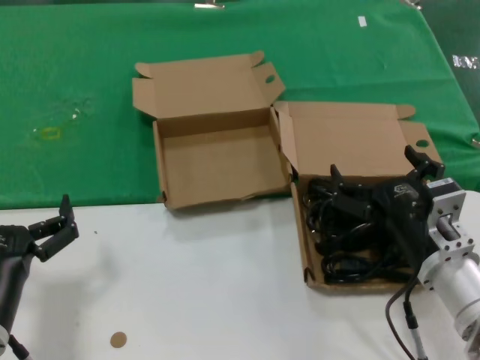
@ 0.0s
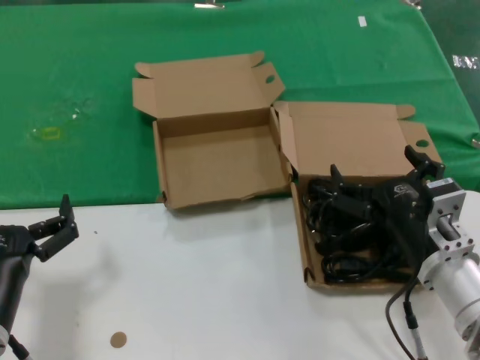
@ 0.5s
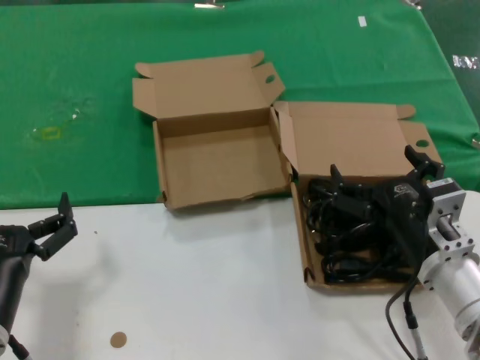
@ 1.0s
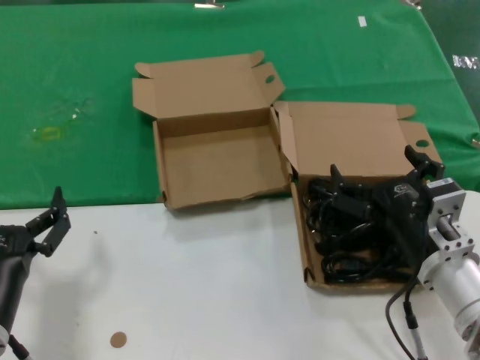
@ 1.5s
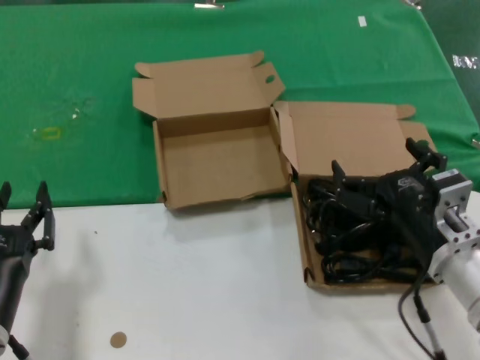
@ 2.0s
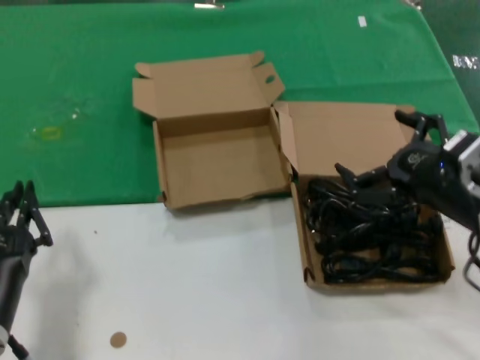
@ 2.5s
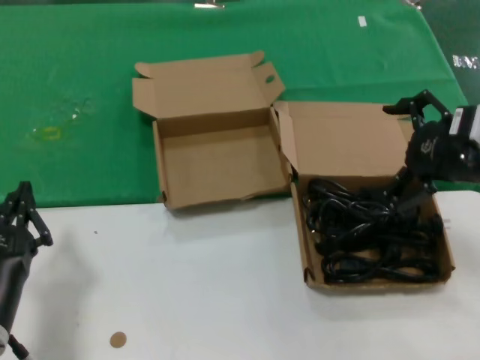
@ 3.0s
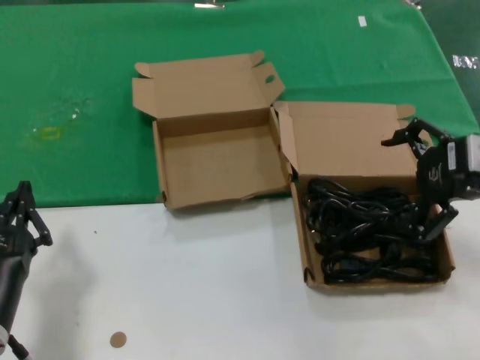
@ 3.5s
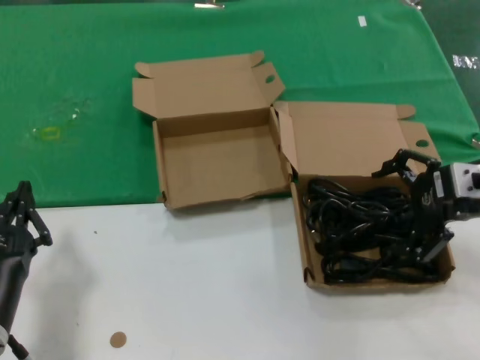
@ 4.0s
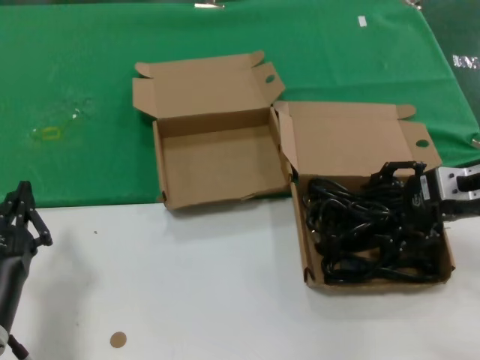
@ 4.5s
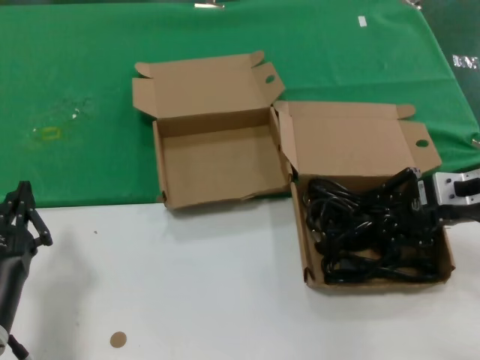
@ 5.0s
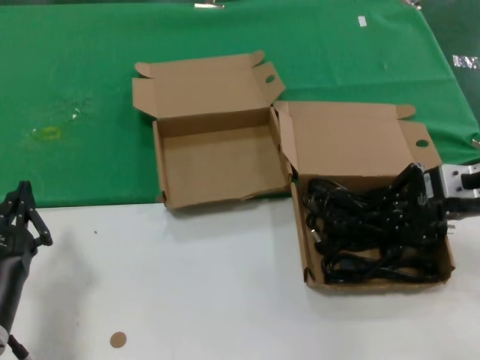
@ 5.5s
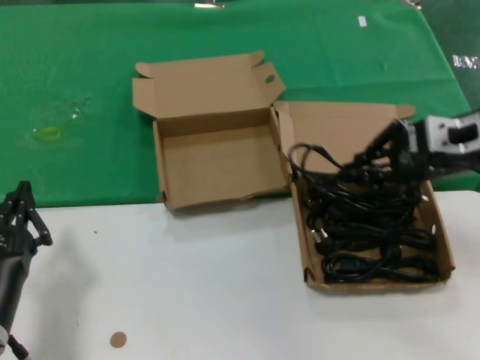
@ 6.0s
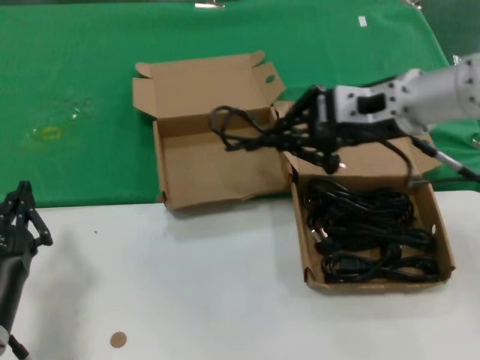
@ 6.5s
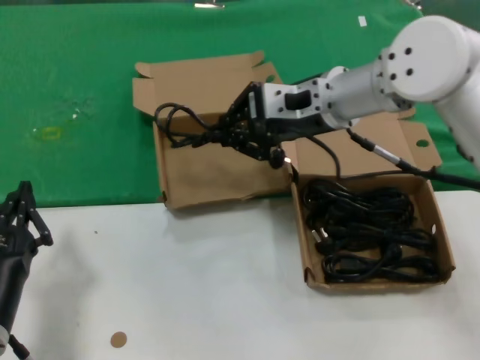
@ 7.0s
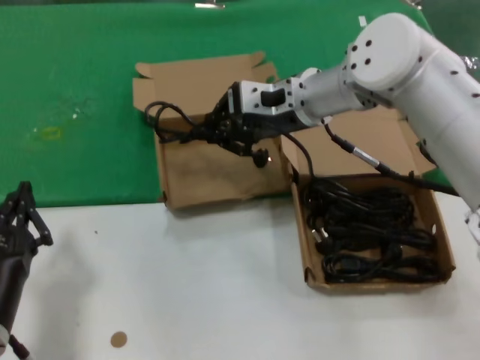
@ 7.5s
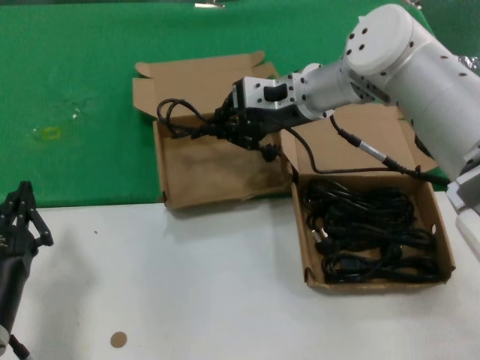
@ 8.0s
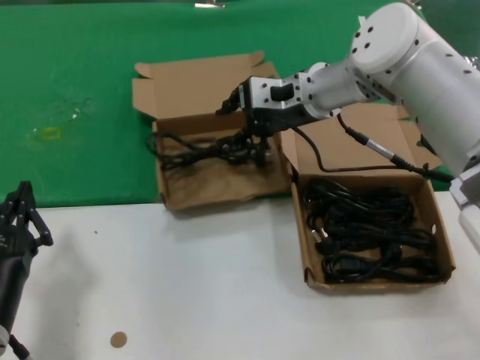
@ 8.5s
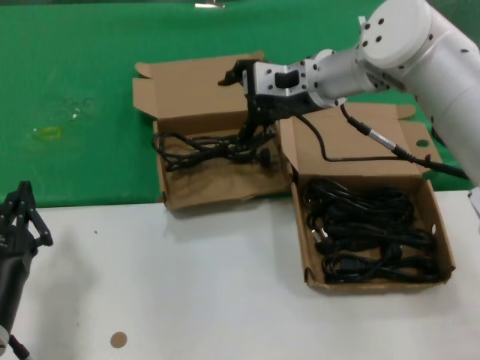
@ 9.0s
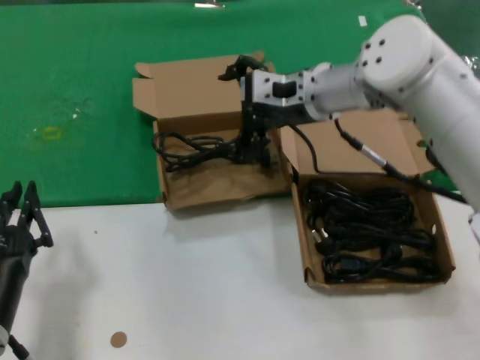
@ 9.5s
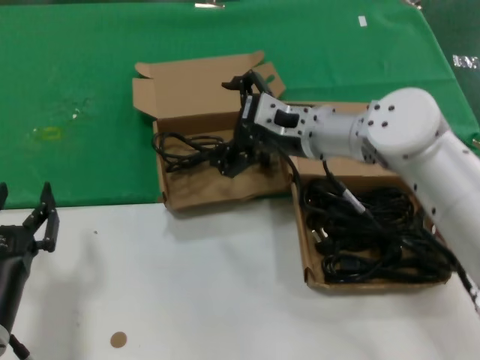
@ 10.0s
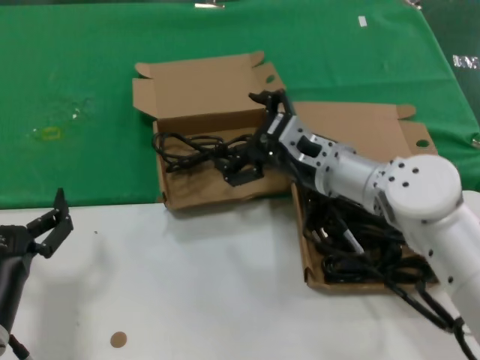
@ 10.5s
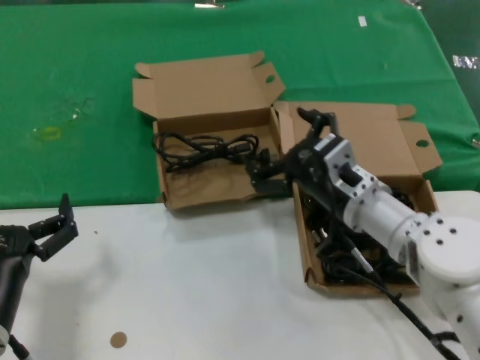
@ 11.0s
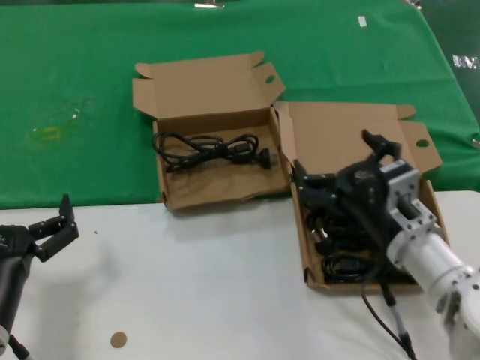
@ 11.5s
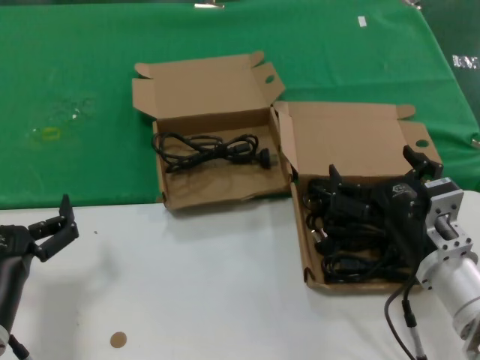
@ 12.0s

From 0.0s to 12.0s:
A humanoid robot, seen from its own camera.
Task of the whole recording: take the parts from the box containing them and put them into an empty box.
Step, from 0.0s to 4.5s: Grasp the data cable.
Step, from 5.5s to 8.5s: Place the data cable in the another box.
From 0.0s to 2.0s: The two hands keep their place.
From 2.0s to 4.0s: The right hand travels upward, to the right and forward by approximately 20 cm.
From 4.0s to 6.0s: The right hand ends up some 5 cm from where it was.
From 6.0s to 8.0s: The right hand shifts about 25 cm to the left and forward.
From 8.0s to 10.0s: The right hand heads downward, covering about 5 cm.
From 10.0s to 12.0s: The right hand heads backward, downward and to the right, covering about 25 cm.

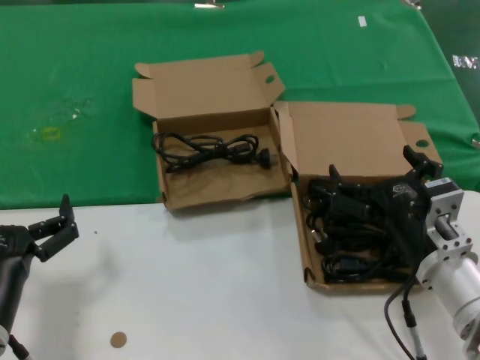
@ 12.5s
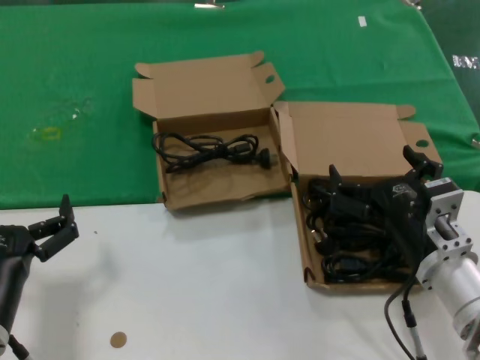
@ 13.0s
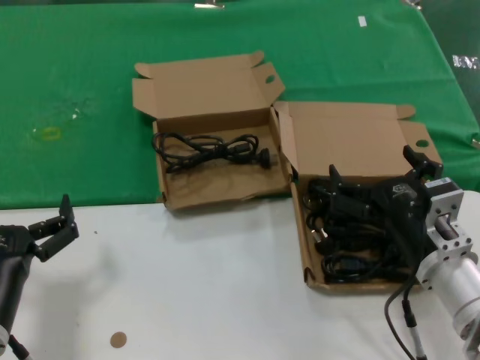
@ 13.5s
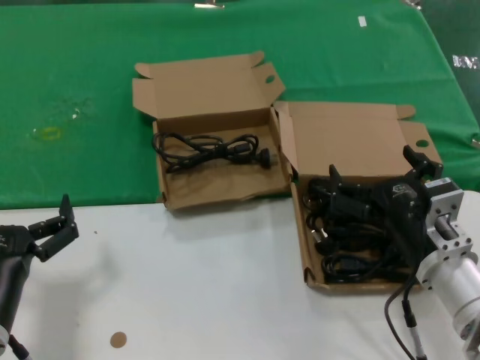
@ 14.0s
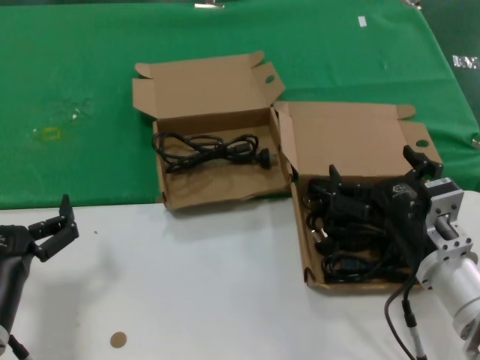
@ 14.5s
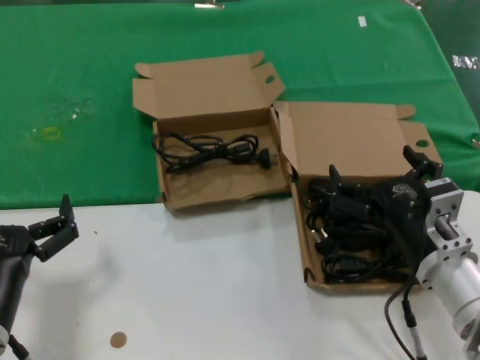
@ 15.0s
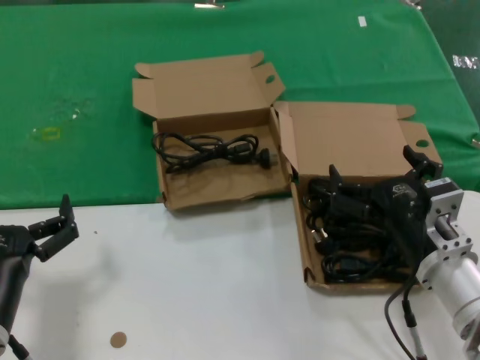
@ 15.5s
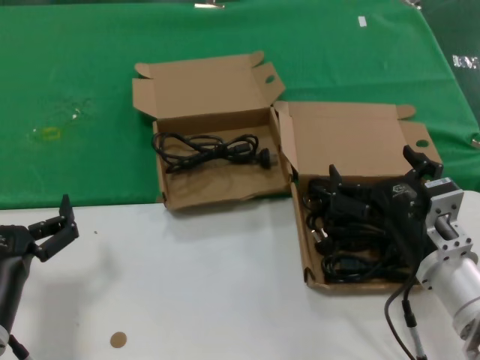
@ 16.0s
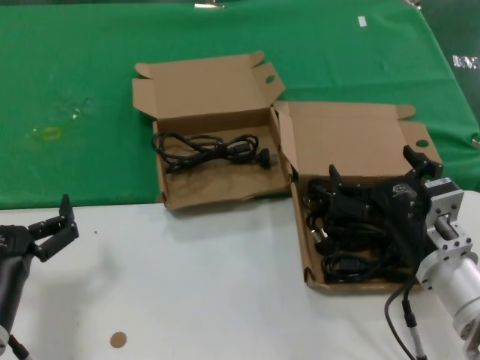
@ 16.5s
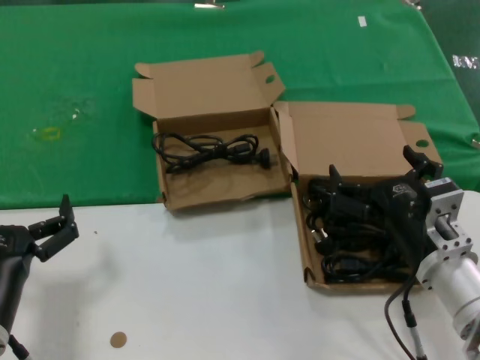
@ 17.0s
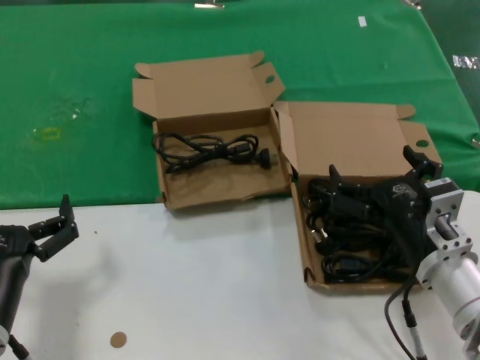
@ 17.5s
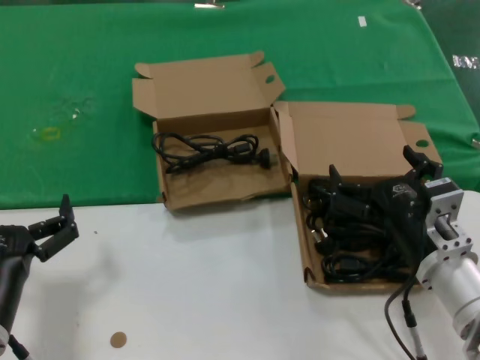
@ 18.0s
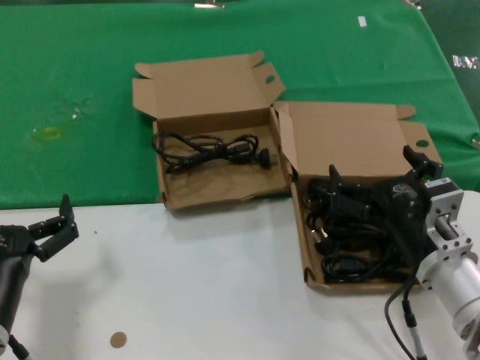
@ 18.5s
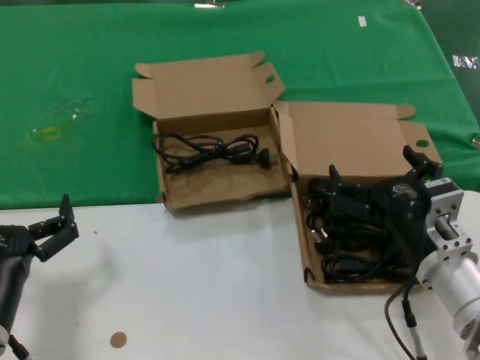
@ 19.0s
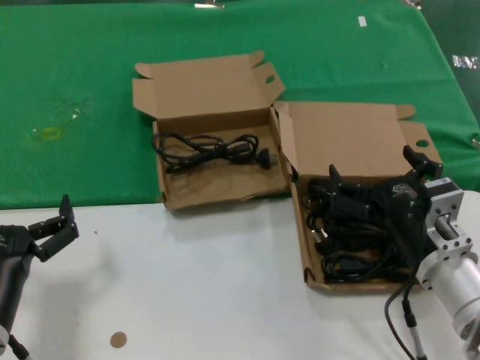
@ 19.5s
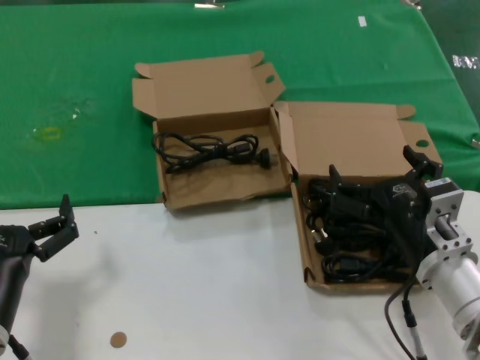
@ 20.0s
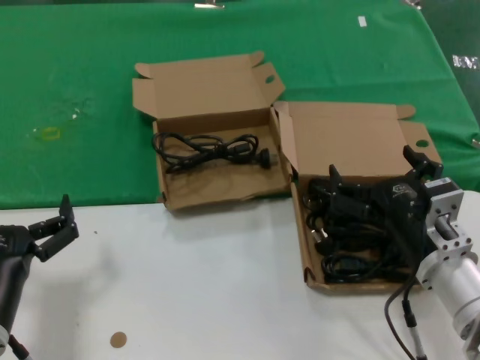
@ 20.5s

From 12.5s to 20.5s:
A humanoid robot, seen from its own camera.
Task of the whole recording: take the parts from the box containing them and put them into an empty box.
From 12.5s to 20.5s: Neither hand changes place.

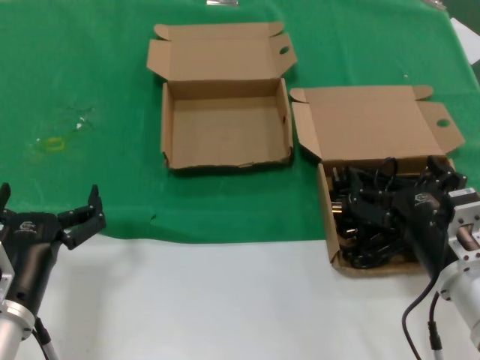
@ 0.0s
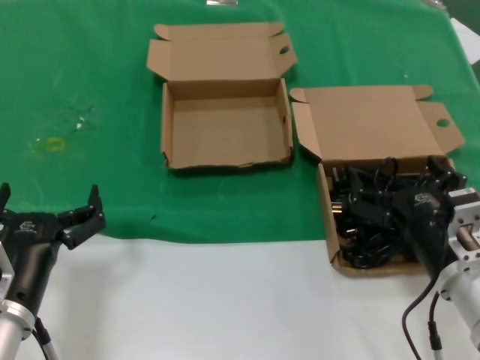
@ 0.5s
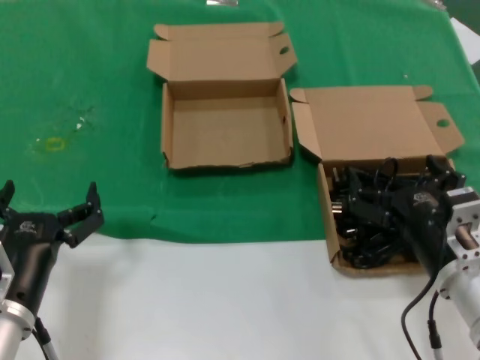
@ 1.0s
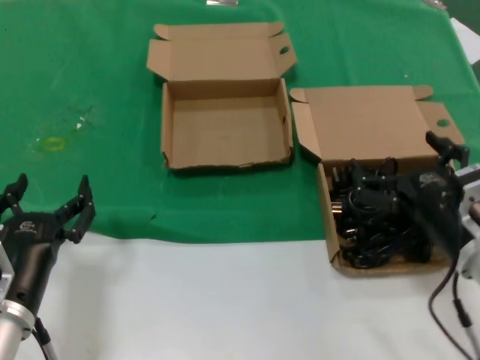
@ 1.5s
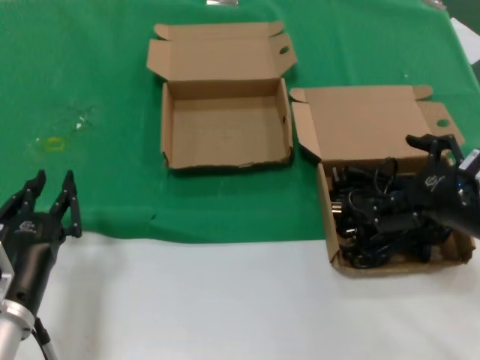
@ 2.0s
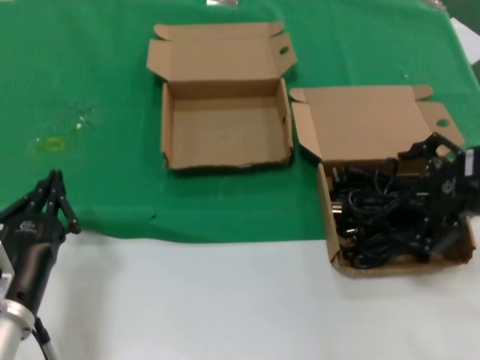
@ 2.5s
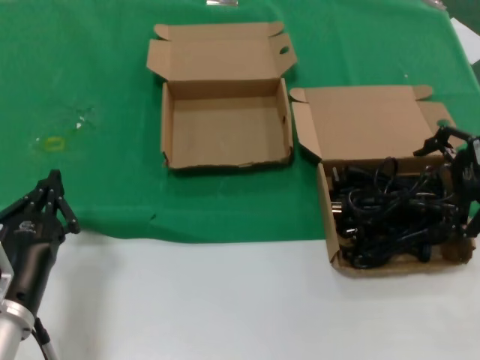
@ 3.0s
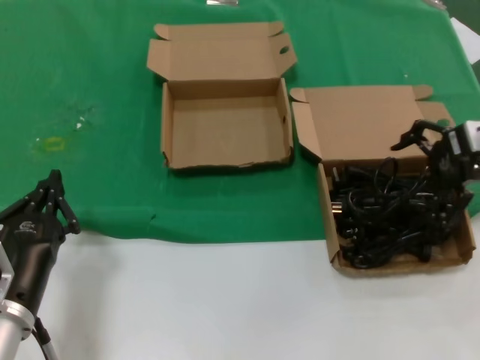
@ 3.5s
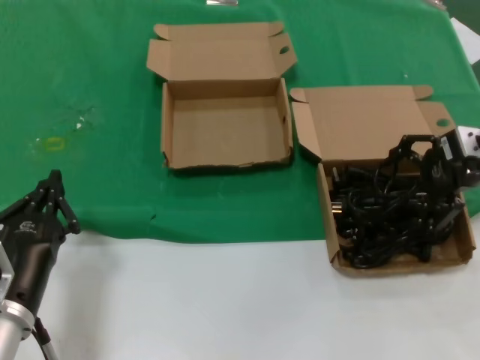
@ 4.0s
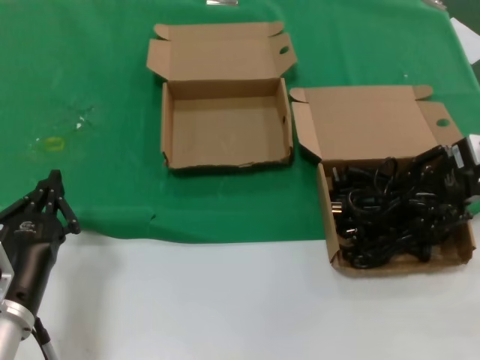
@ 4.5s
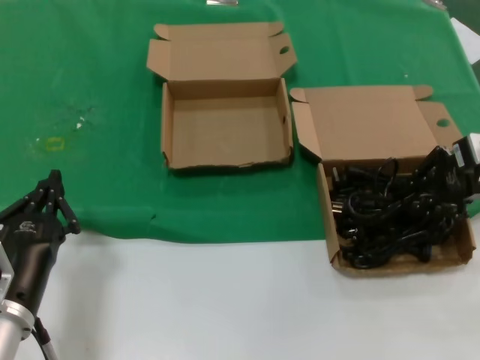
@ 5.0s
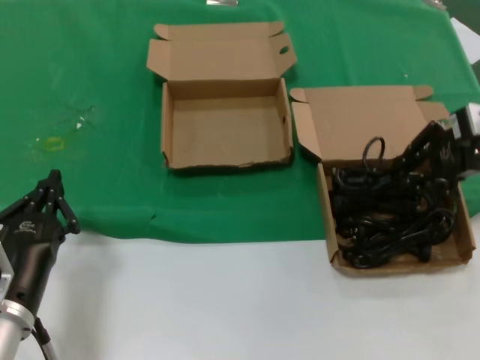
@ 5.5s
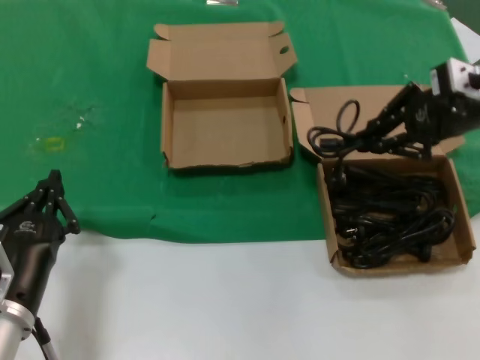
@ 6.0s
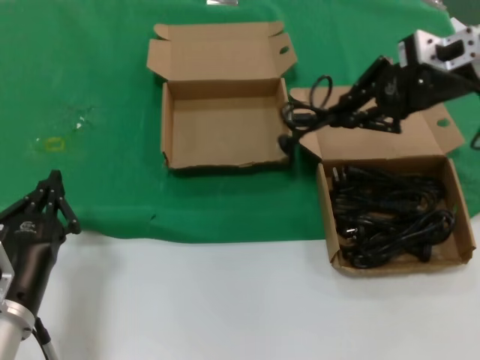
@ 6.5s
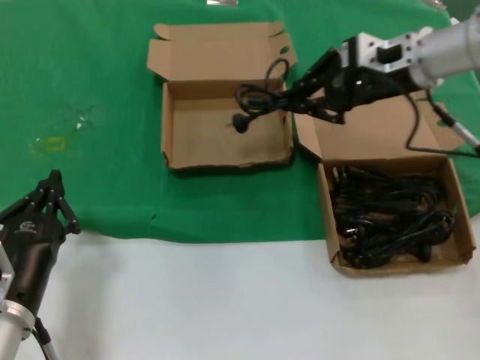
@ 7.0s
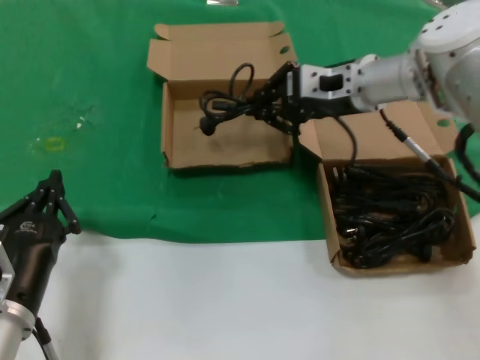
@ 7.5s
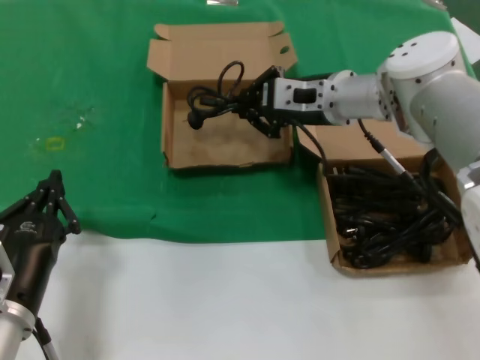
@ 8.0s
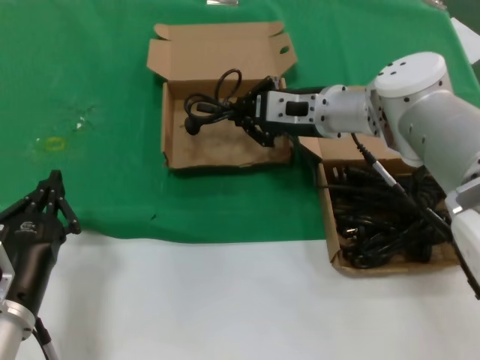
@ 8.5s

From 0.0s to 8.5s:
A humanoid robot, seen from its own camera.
Task of the whole recording: take the parts from the box containing them and put them into an empty box.
Step, from 0.0s to 5.0s: Grasp the data cable.
From 0.0s to 2.0s: The right hand moves upward and to the right, about 10 cm.
From 2.0s to 4.0s: The right hand goes some 20 cm forward and upward.
From 4.0s to 6.5s: The right hand shifts roughly 10 cm upward and to the left.
From 6.5s to 8.5s: The right hand is displaced to the left and downward by roughly 20 cm.
